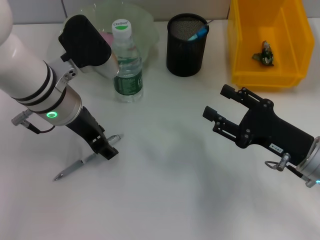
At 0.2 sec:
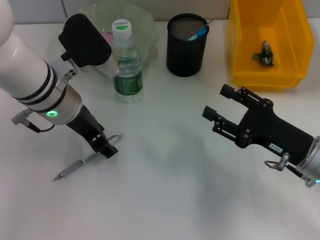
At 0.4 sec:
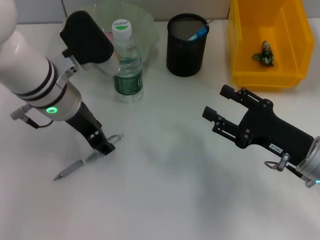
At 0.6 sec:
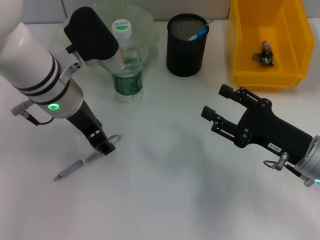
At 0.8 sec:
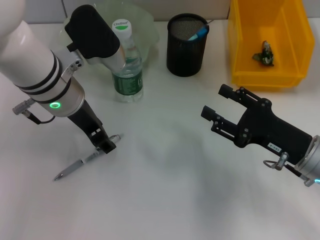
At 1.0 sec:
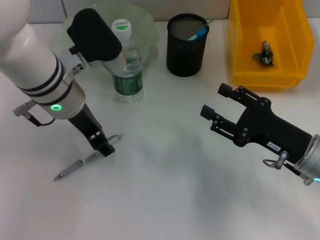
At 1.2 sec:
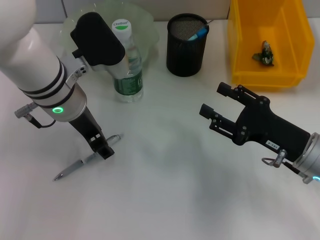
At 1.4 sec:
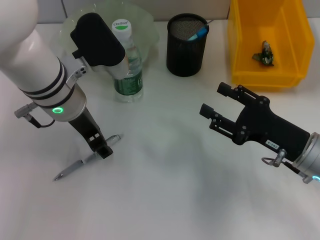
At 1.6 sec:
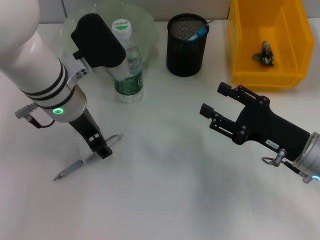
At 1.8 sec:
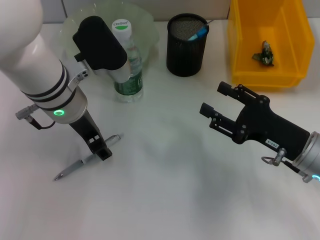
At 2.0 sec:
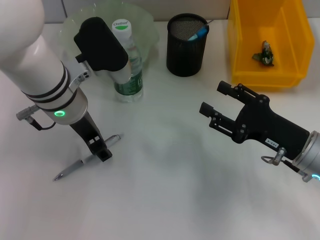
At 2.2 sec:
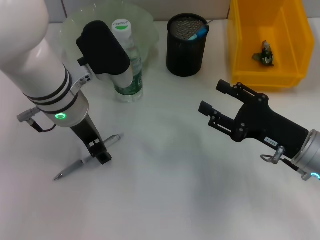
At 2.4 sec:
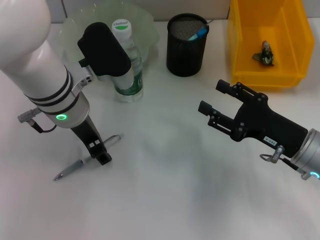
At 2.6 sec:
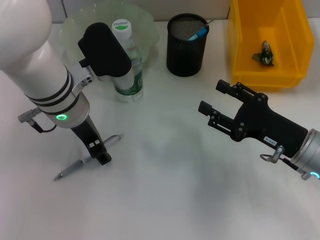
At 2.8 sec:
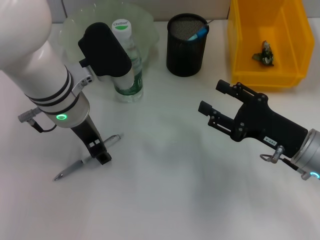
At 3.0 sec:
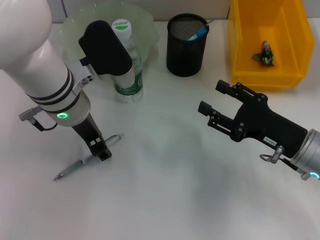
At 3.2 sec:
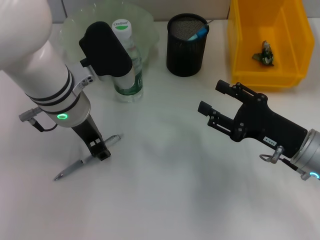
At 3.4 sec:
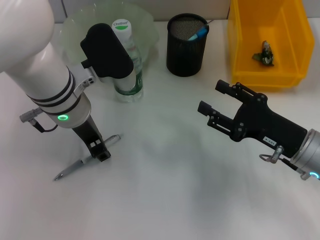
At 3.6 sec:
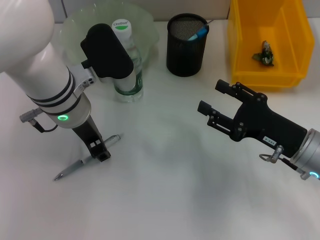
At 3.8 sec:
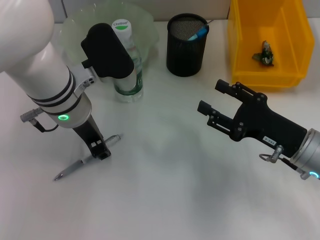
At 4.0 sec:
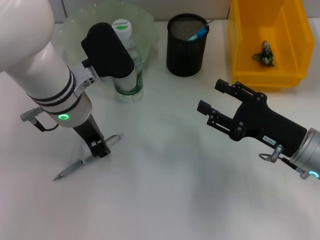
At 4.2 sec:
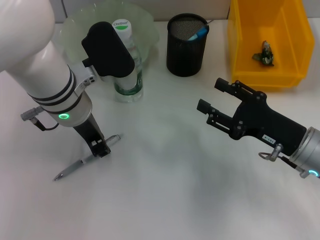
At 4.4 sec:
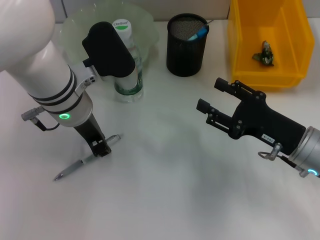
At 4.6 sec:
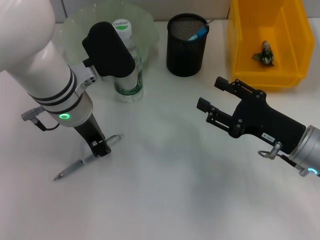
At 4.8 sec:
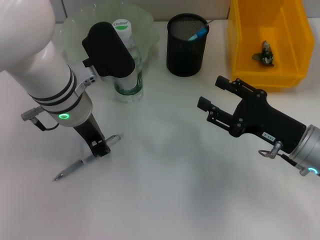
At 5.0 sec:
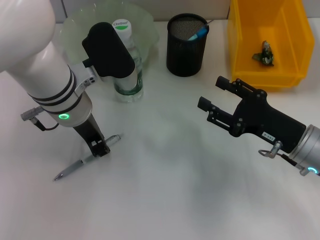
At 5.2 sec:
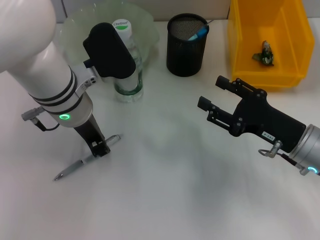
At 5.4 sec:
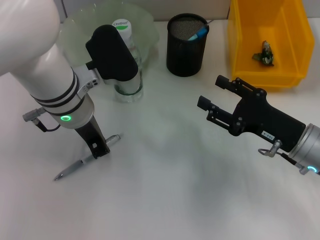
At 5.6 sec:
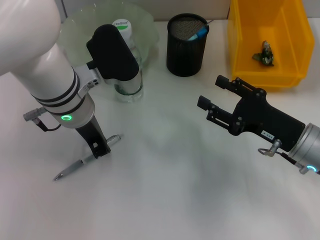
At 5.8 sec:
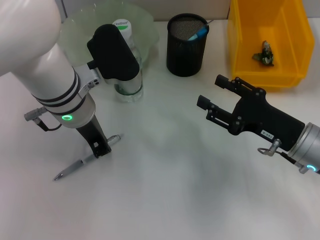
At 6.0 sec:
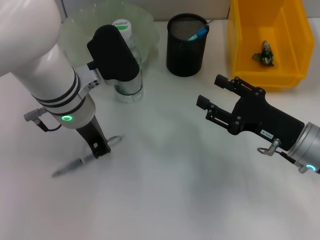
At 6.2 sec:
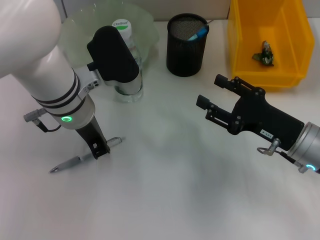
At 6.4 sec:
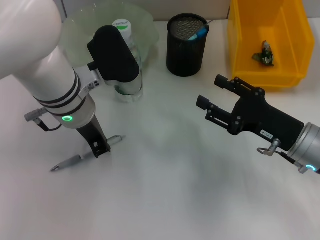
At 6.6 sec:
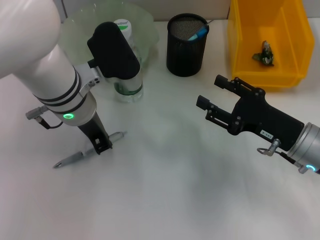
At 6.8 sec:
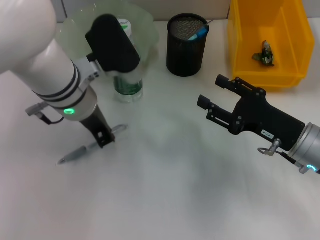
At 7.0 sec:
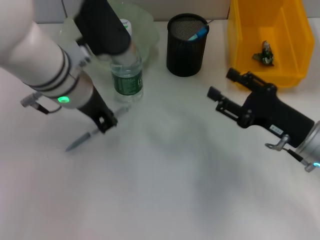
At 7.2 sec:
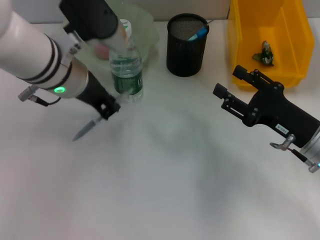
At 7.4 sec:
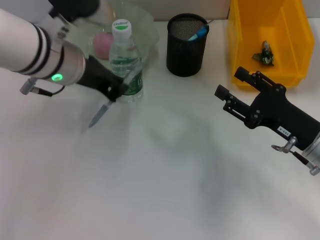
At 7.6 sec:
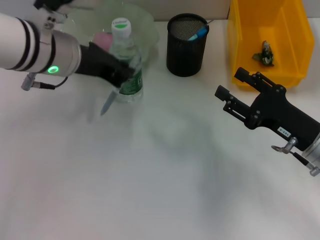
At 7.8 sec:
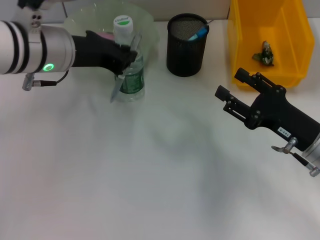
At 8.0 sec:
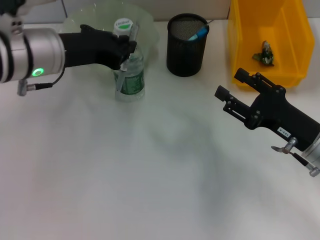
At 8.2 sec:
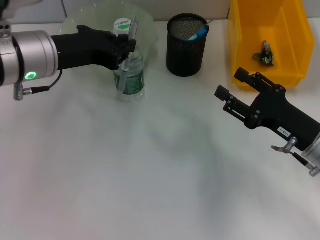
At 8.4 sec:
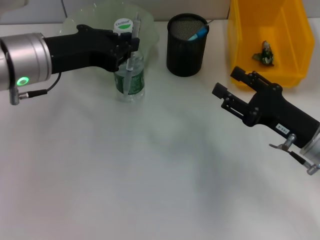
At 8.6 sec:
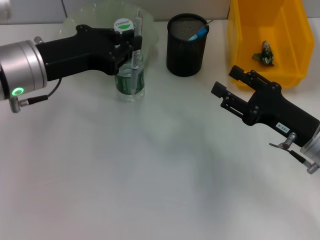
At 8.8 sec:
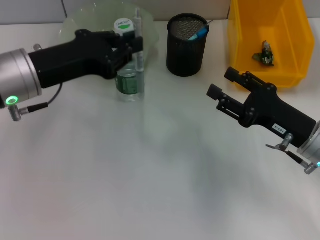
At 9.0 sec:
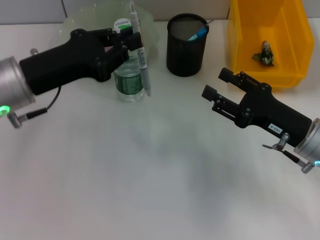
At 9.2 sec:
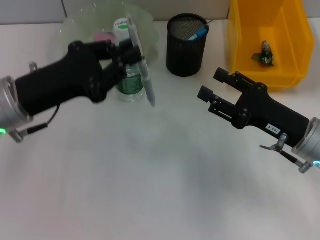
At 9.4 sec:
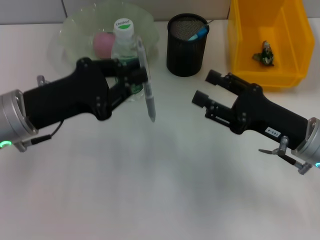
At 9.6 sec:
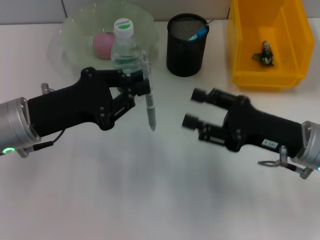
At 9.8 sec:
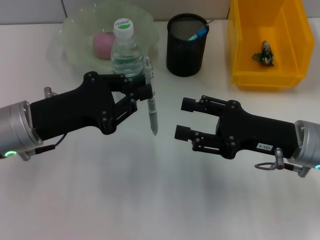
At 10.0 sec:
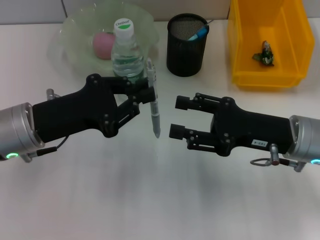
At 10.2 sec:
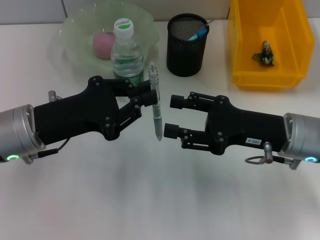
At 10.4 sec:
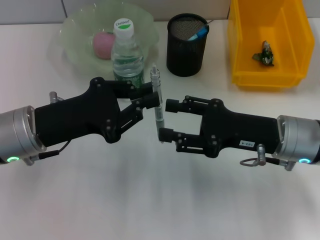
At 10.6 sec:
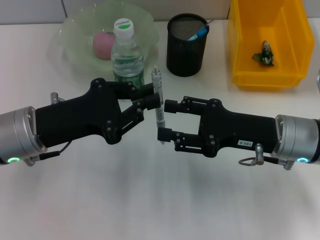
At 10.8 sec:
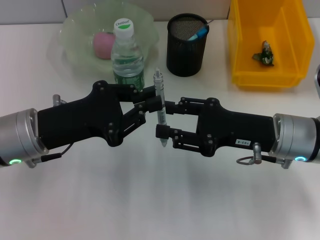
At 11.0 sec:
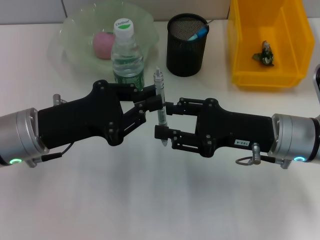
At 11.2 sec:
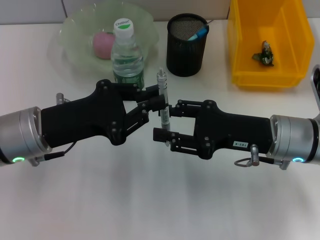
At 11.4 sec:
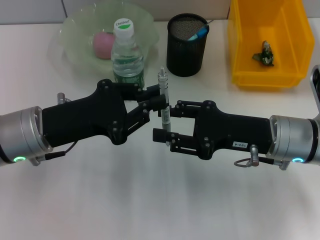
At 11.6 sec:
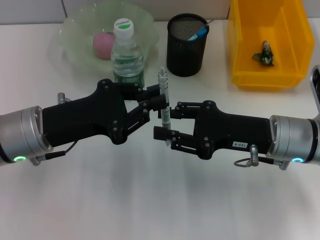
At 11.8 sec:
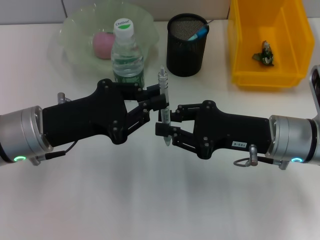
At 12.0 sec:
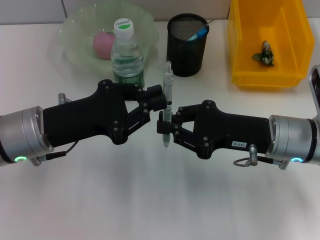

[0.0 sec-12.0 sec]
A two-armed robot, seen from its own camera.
Step, 0.0 sec to 5.6 sec: Grab the gray spring-action pen with the left hand.
0.0 sec to 1.6 sec: There are only small adjustments of the grippers.
1.6 sec to 3.0 sec: Neither gripper changes place.
3.0 sec to 4.4 sec: The left gripper closes up.
4.4 sec to 6.0 sec: Both grippers stay about where they are.
6.0 sec to 7.6 sec: The left gripper changes place by roughly 5 cm.
7.6 sec to 9.0 sec: The left gripper goes approximately 10 cm backward and to the left.
9.0 sec to 10.4 sec: The right gripper ends up roughly 5 cm from where it was; the left gripper shifts by approximately 5 cm.
10.4 sec to 12.0 sec: The right gripper closes its fingers.

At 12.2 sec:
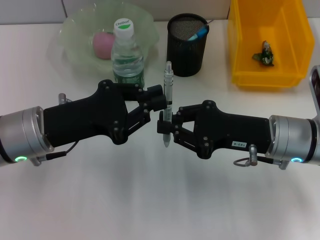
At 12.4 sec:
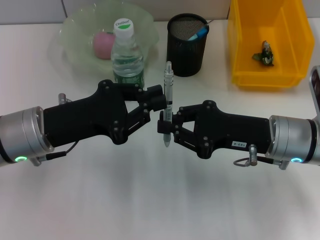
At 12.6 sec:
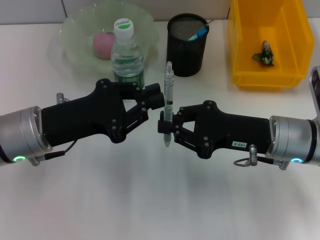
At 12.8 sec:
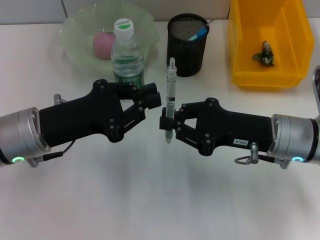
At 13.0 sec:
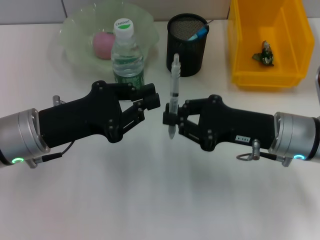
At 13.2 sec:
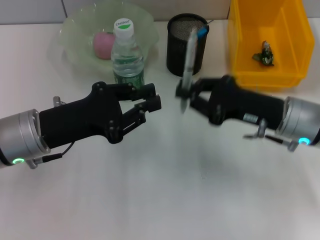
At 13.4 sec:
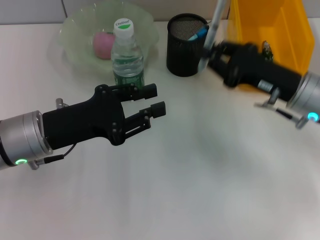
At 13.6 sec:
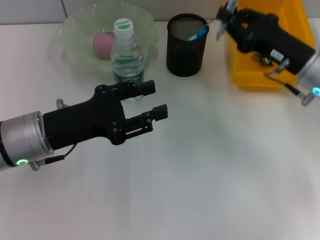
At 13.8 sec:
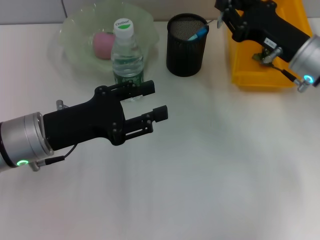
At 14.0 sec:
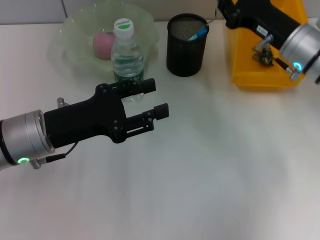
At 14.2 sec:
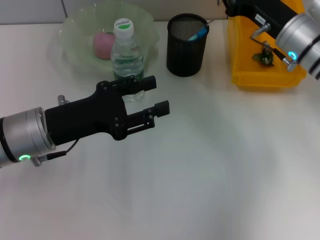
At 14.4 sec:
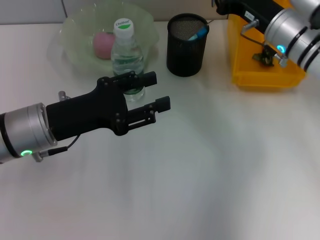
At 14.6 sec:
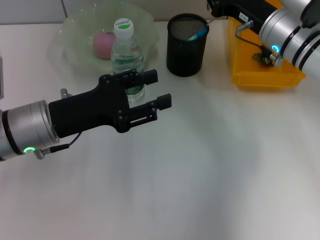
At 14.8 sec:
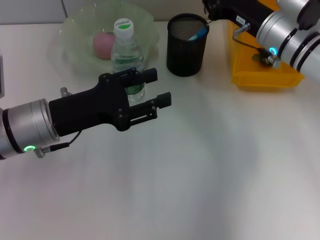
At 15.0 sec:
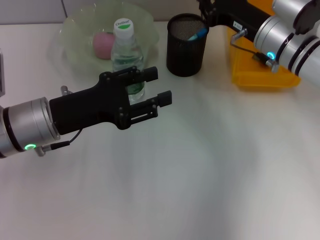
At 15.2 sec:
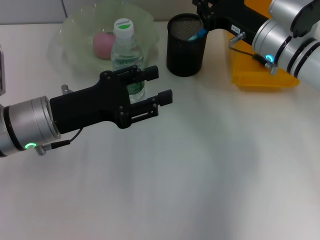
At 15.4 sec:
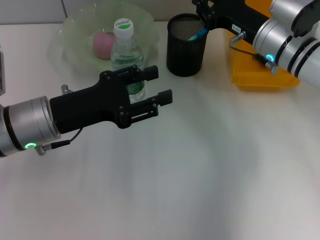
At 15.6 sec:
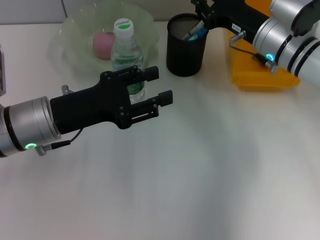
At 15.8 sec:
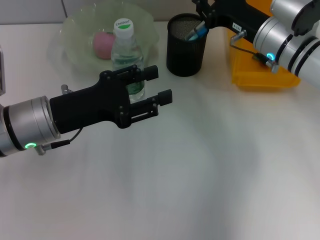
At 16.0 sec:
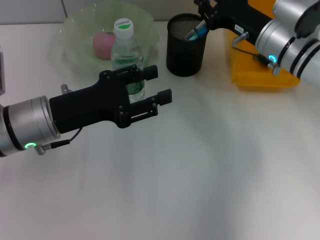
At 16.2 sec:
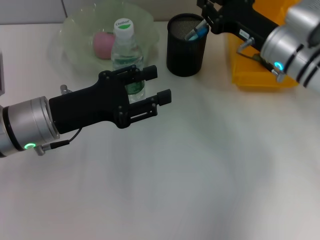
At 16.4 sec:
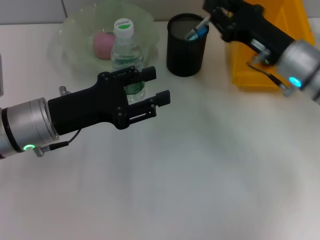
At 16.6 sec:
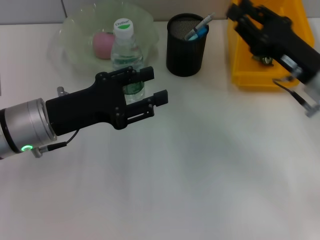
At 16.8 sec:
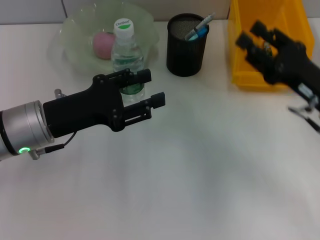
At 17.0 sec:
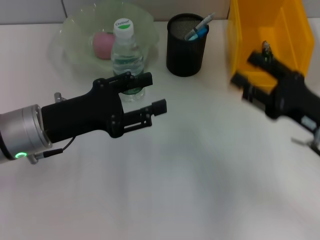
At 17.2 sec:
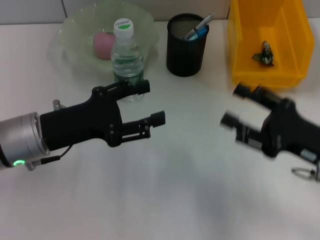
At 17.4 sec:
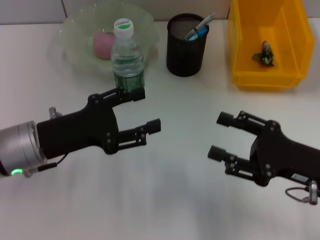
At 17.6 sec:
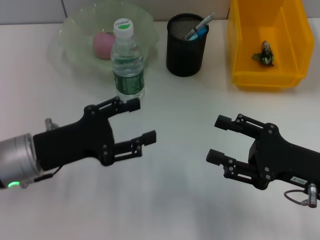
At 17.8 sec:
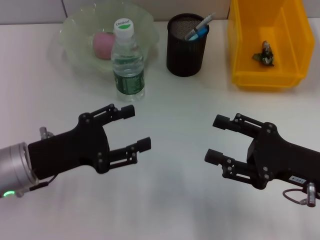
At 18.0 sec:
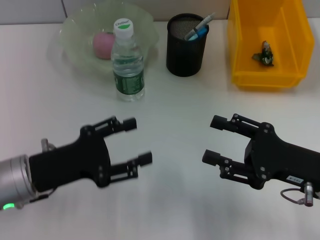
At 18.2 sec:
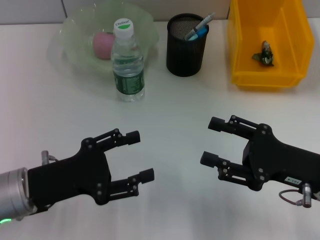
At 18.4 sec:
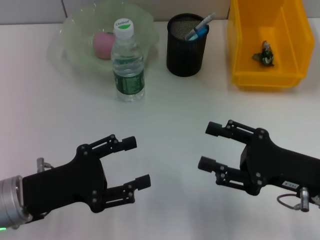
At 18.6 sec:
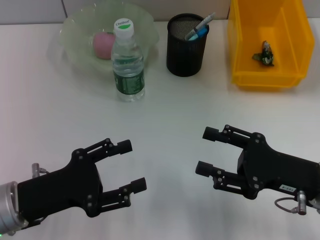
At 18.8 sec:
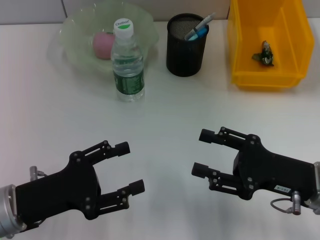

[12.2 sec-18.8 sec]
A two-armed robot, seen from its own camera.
Step, 13.0 sec to 16.4 sec: Place the gray spring-action pen into the pen holder with the right hand.
12.2 sec to 13.8 sec: The right gripper goes approximately 10 cm forward, while the left gripper opens its fingers.
13.8 sec to 15.4 sec: The right gripper ends up about 5 cm from where it was.
15.4 sec to 17.2 sec: The right gripper moves backward and to the right, roughly 20 cm, and opens up.
17.2 sec to 18.8 sec: The left gripper heads backward, covering approximately 10 cm.
